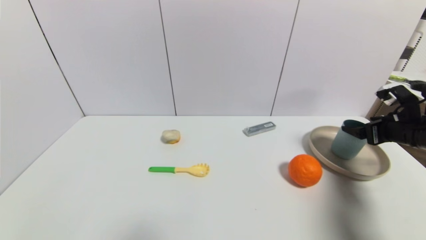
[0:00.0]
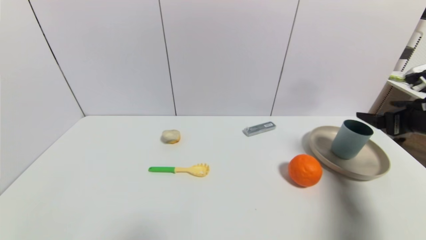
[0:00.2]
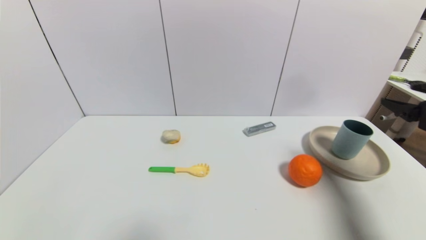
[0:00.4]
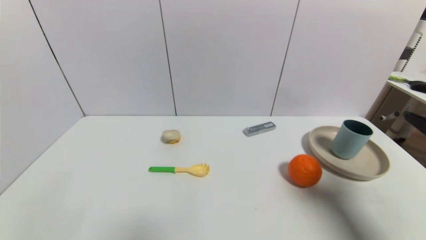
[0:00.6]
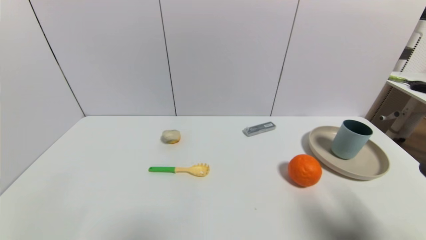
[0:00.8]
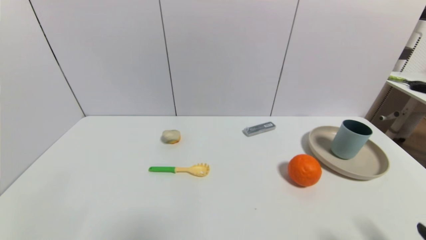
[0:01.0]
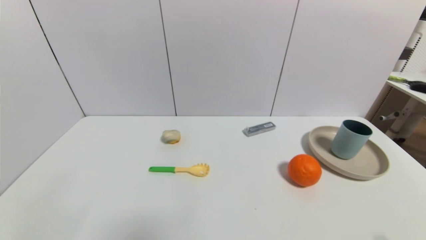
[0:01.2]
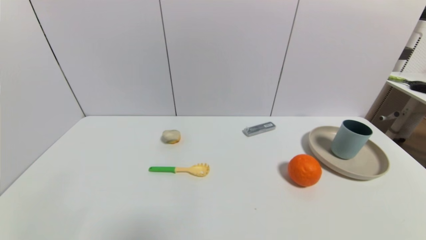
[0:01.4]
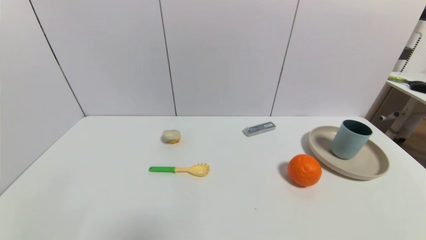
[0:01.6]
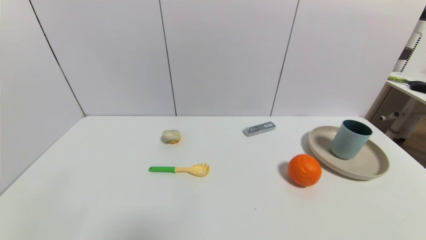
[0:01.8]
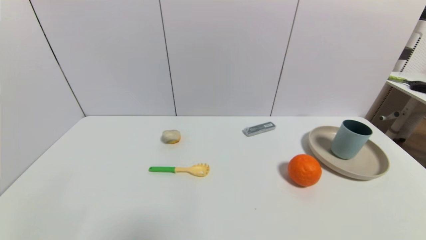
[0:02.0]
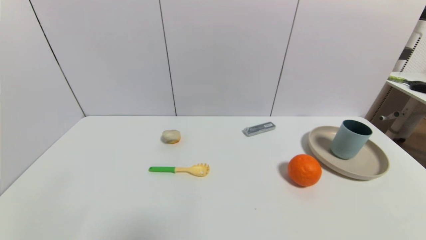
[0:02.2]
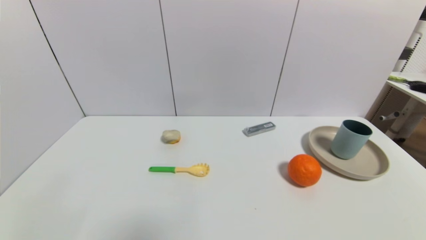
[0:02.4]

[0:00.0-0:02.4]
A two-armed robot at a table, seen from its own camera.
Task of the whole recording: use a gripper to pick the target object and place on the brown plate.
0:00.0 to 0:01.2: The right gripper heads backward, covering roughly 30 cm.

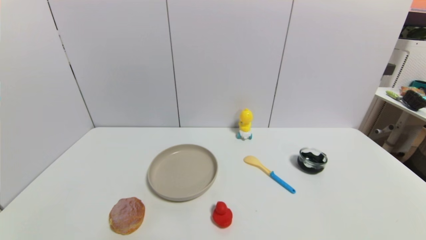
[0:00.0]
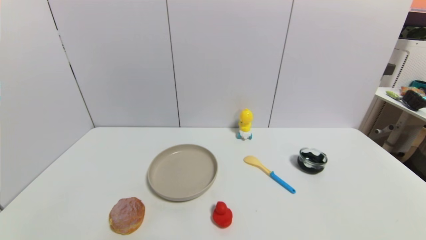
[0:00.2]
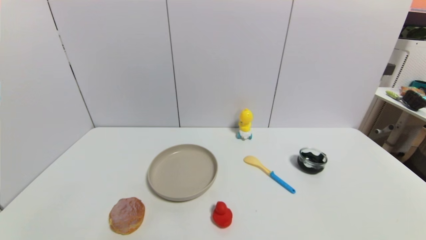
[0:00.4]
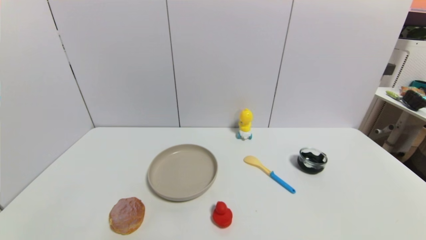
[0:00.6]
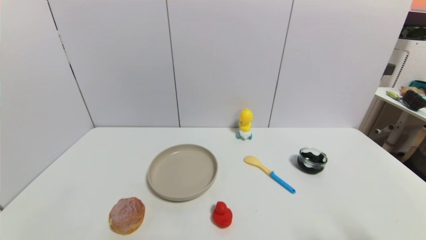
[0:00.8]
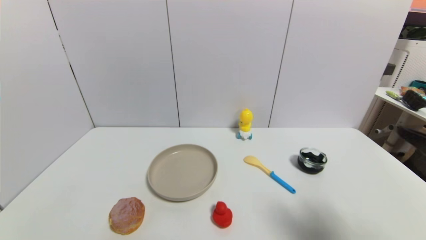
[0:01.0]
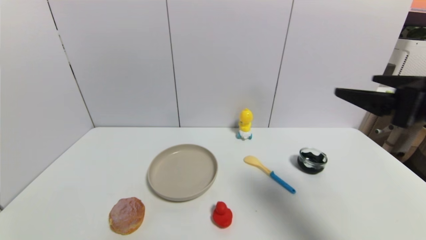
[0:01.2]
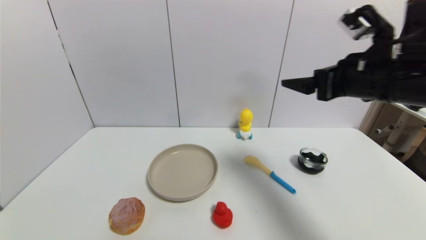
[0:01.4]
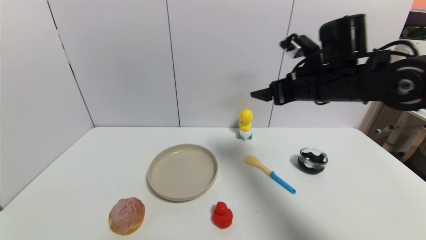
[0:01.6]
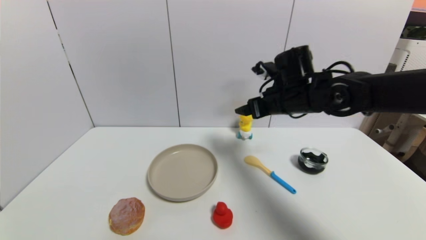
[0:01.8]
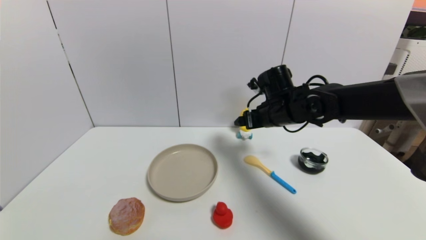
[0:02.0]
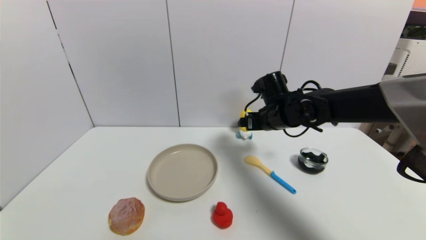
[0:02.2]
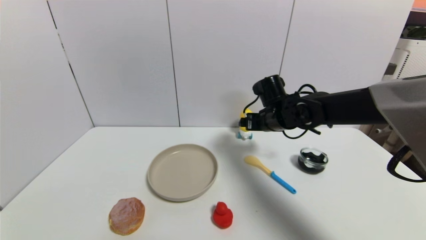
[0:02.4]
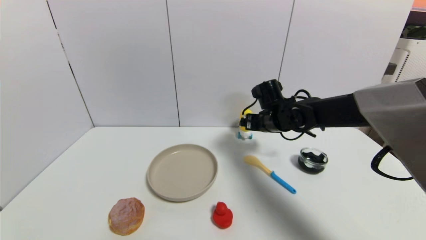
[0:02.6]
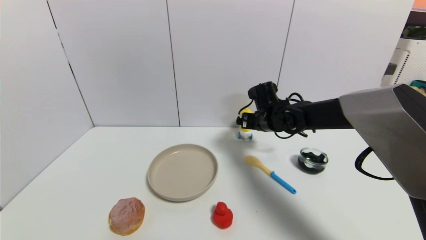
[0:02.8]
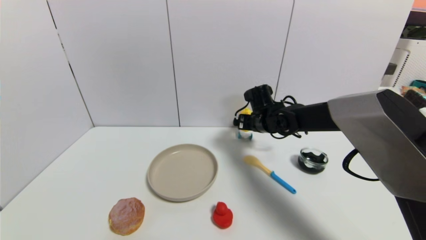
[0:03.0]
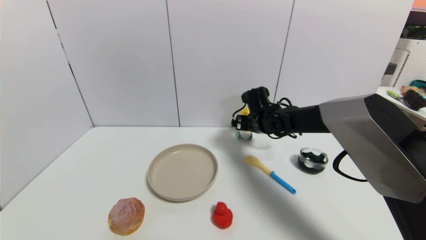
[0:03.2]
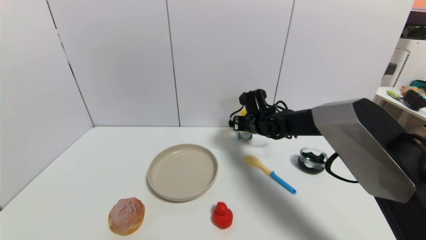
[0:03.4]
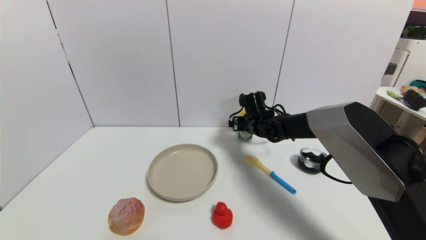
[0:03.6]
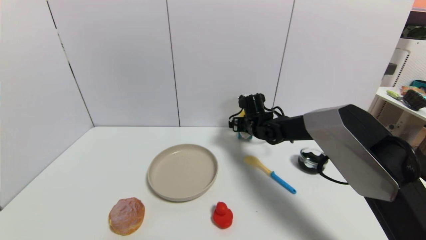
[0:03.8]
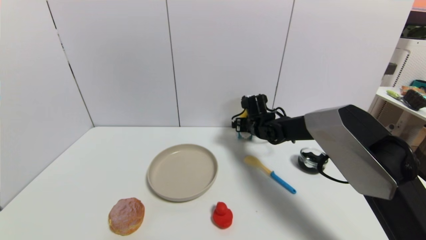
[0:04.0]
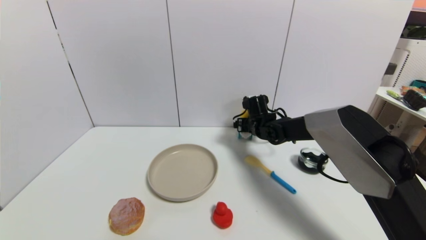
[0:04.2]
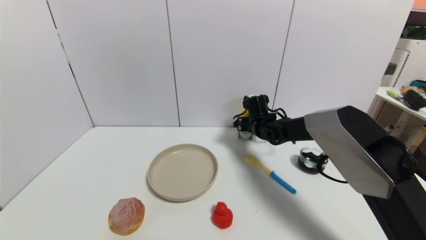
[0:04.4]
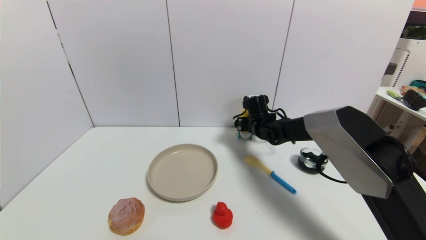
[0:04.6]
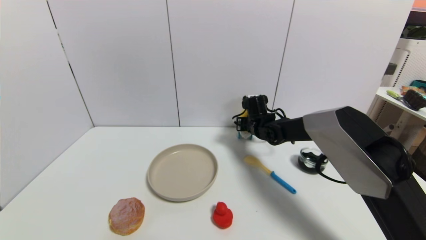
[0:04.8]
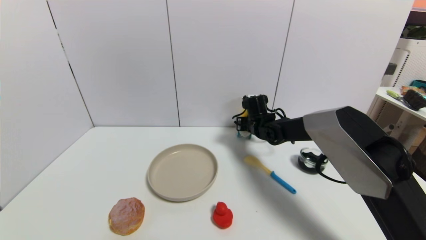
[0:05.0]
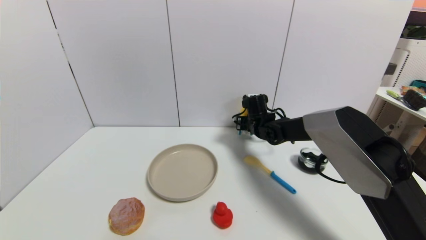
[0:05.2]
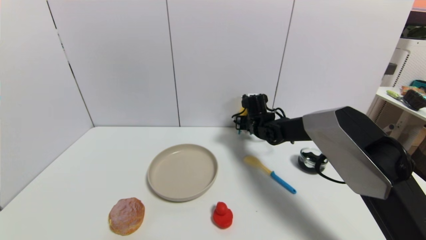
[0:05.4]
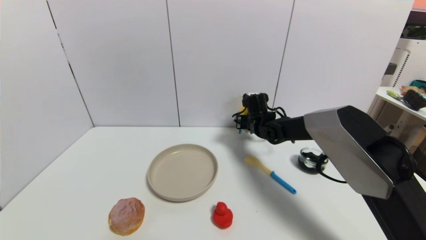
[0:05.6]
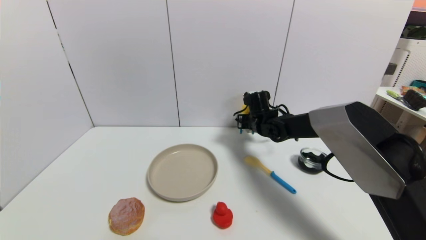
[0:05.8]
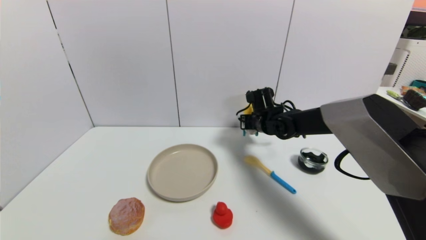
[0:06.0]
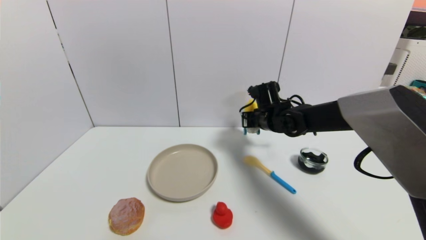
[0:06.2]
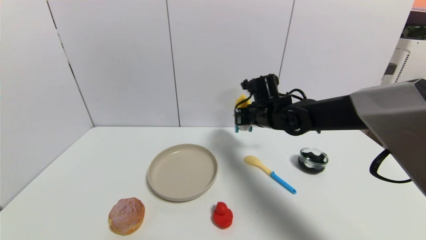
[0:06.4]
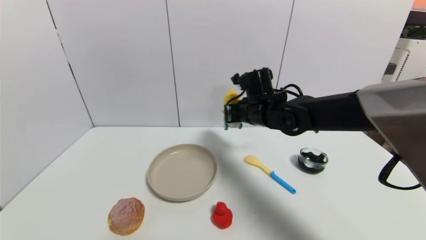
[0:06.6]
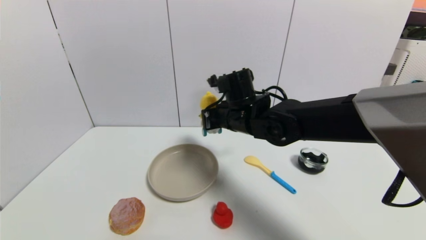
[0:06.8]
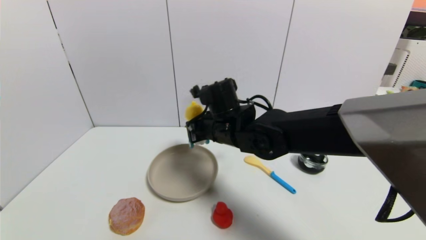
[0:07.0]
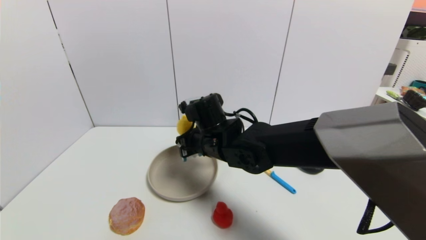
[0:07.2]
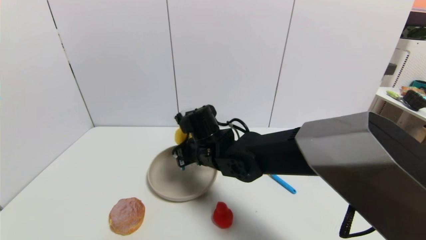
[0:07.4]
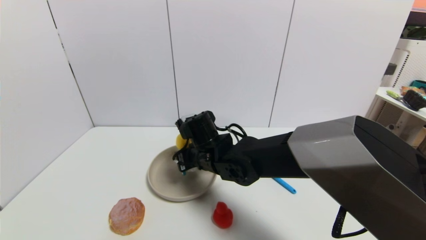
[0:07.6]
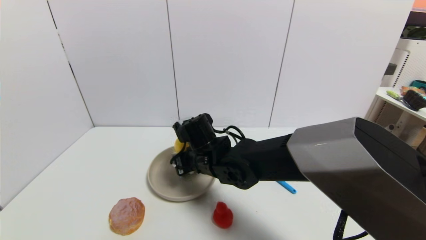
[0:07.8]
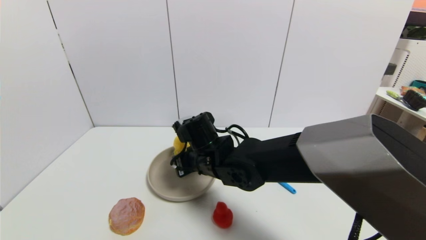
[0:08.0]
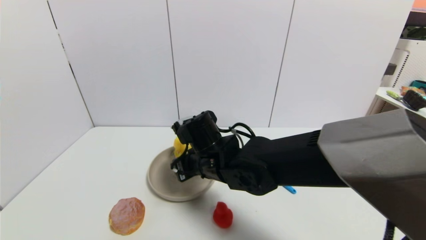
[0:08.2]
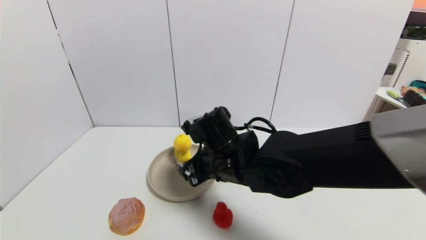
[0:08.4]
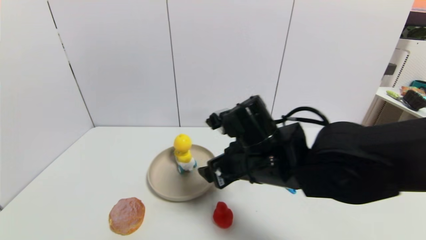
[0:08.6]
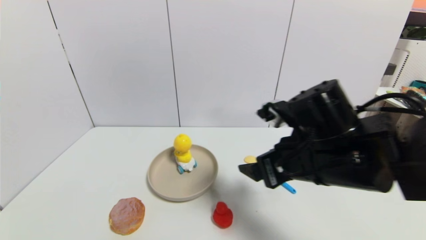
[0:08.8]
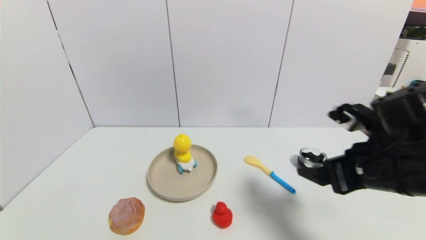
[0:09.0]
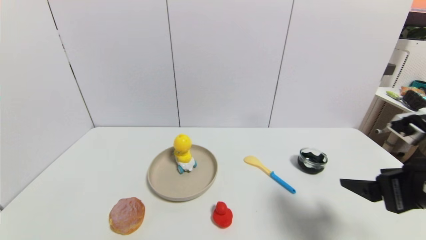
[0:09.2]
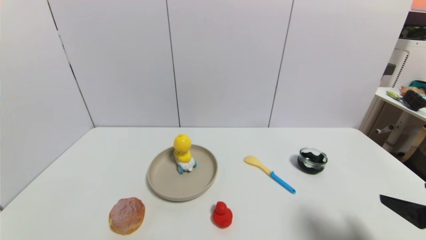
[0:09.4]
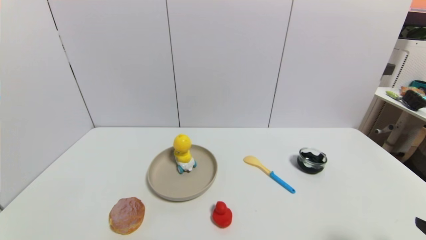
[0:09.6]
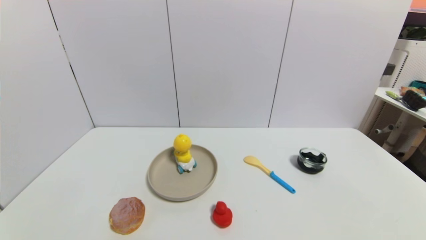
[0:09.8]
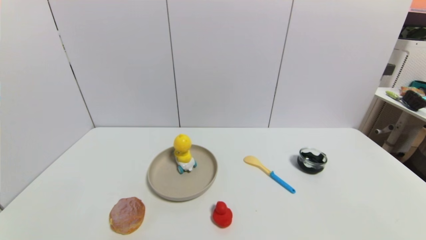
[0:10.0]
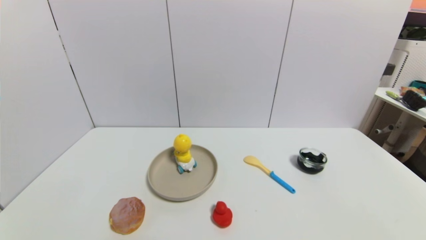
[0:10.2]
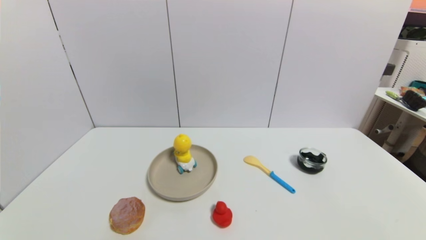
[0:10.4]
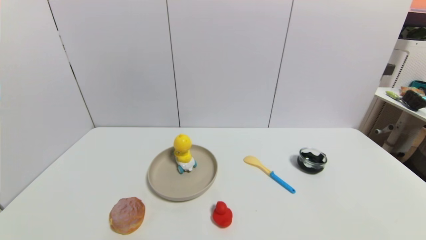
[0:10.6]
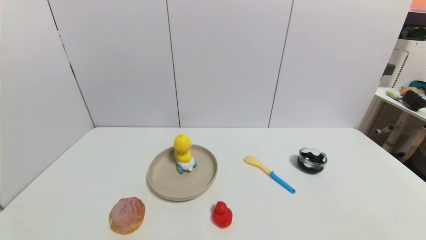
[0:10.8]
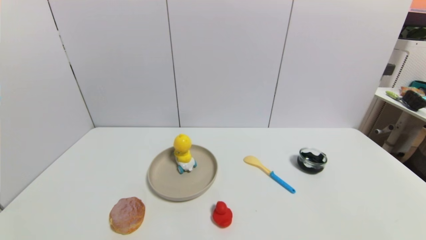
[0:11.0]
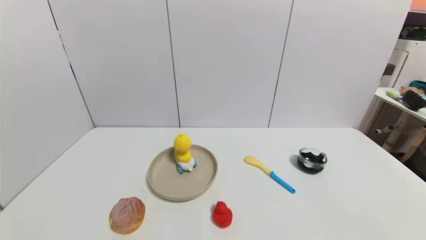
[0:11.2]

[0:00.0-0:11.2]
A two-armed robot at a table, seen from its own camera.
Task of the whole recording: use a gripper to pick the target object and place on the brown plate.
Step, 0:00.0 to 0:05.4: Grasp the duck toy with the right gripper.
Step, 0:05.6 to 0:08.2: Place the duck toy on the brown plate with the right gripper.
0:00.0 to 0:01.6: The right gripper goes approximately 40 cm forward, upward and to the left.
0:01.6 to 0:03.2: The right gripper travels downward, forward and to the left by roughly 20 cm.
0:03.2 to 0:04.8: The right gripper closes its fingers.
0:04.8 to 0:06.4: The right gripper is displaced upward and backward by approximately 10 cm, and closes up.
0:06.4 to 0:08.0: The right gripper shifts approximately 20 cm to the left and backward, and opens up.
0:08.0 to 0:09.6: The right gripper goes about 40 cm to the right and backward, and opens its fingers.
